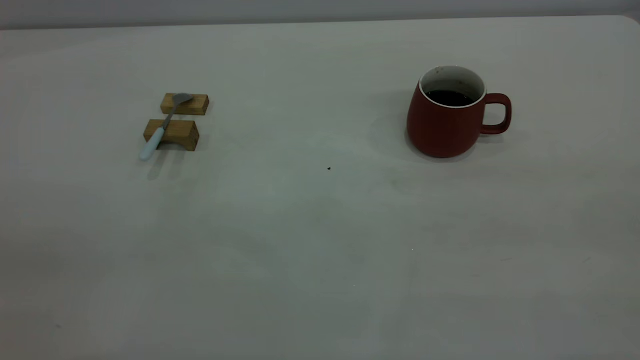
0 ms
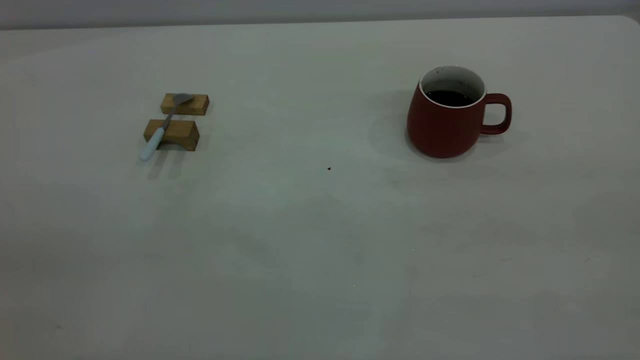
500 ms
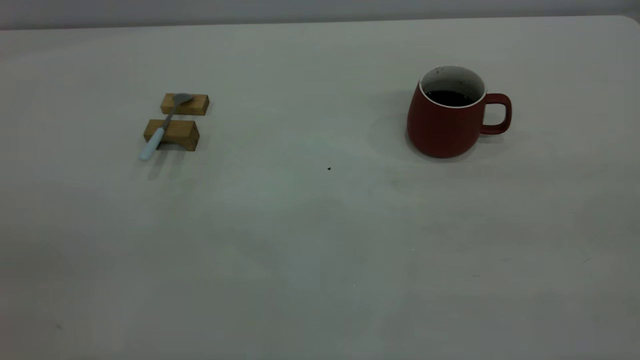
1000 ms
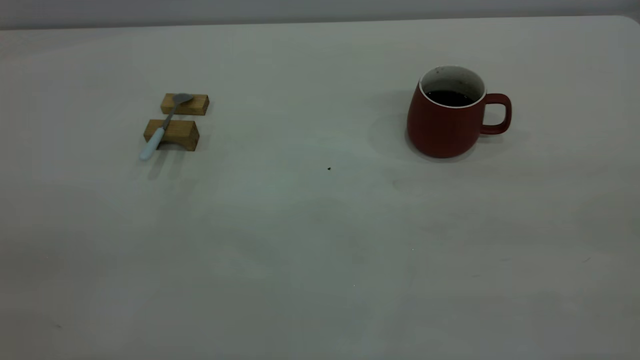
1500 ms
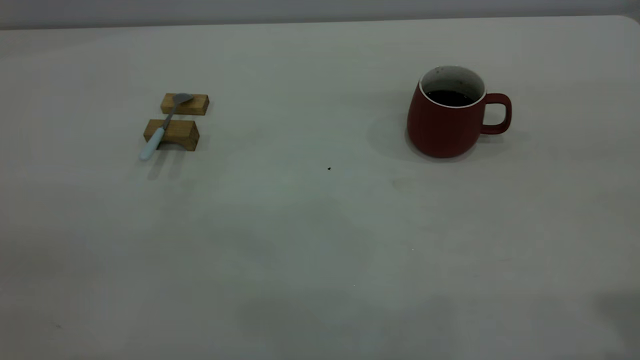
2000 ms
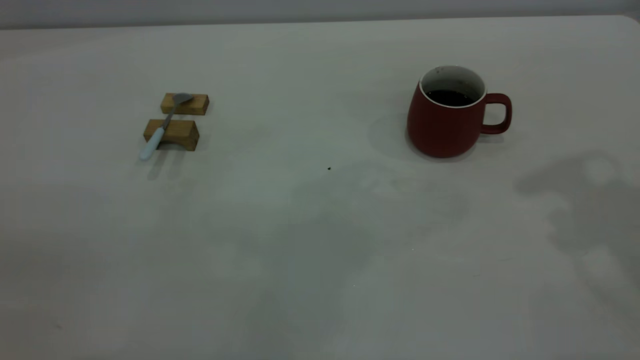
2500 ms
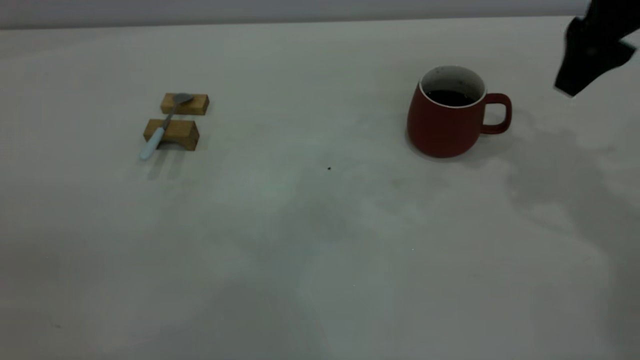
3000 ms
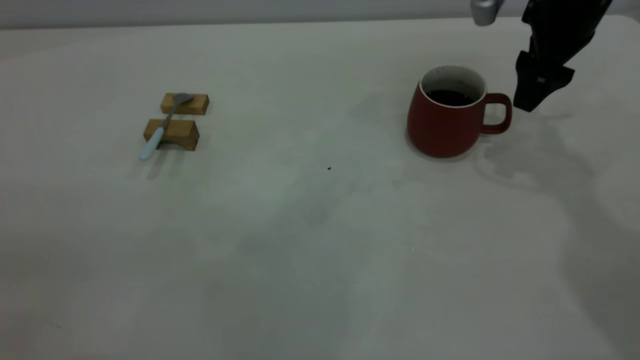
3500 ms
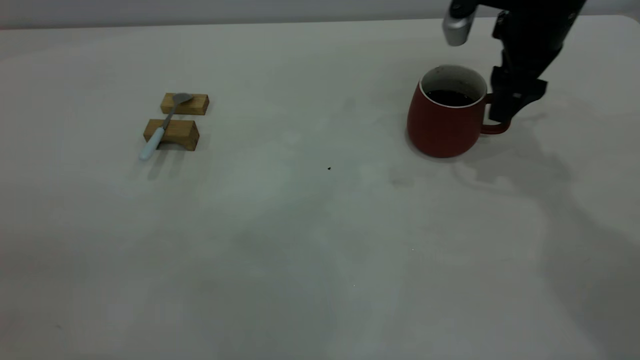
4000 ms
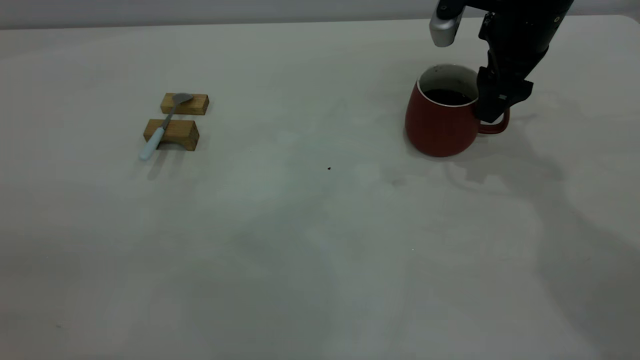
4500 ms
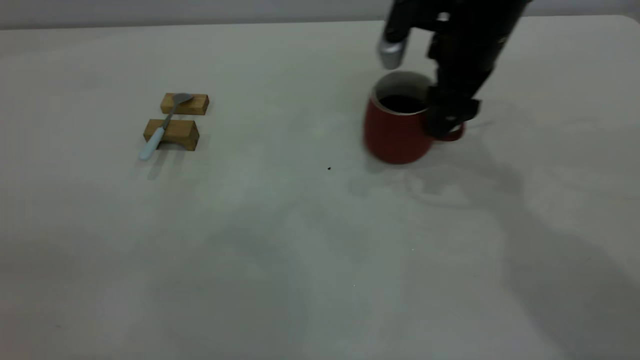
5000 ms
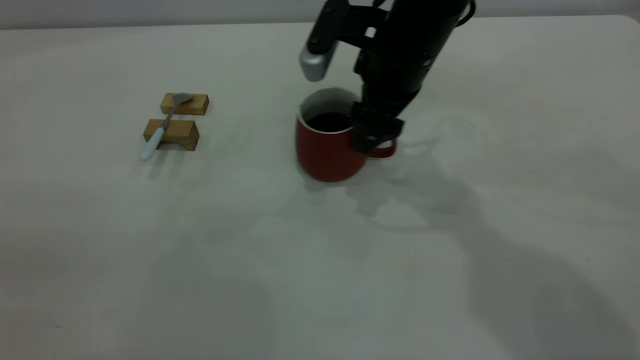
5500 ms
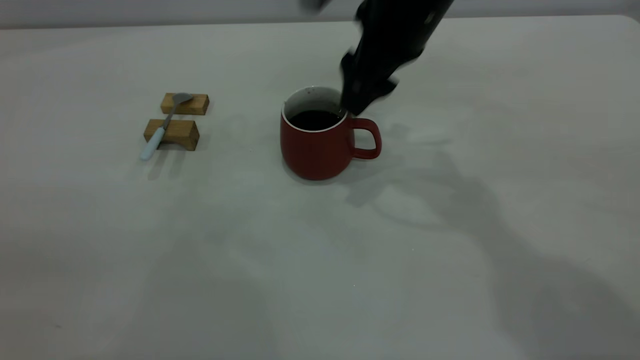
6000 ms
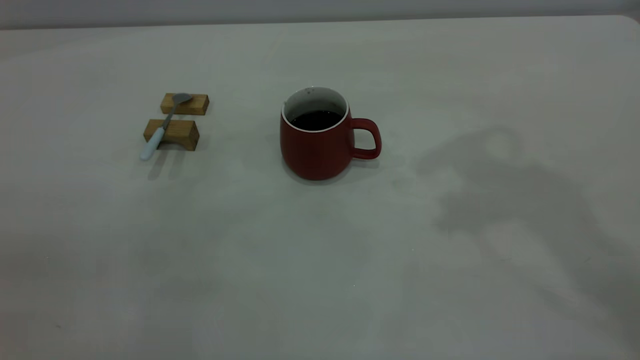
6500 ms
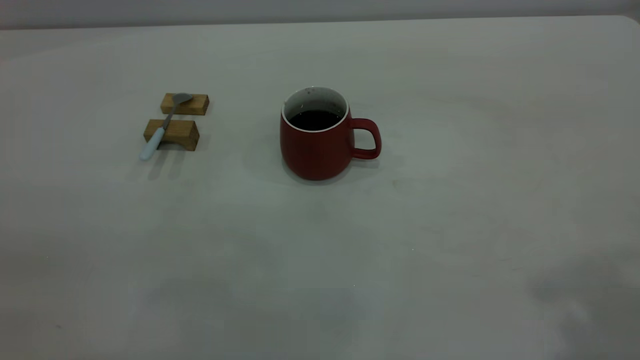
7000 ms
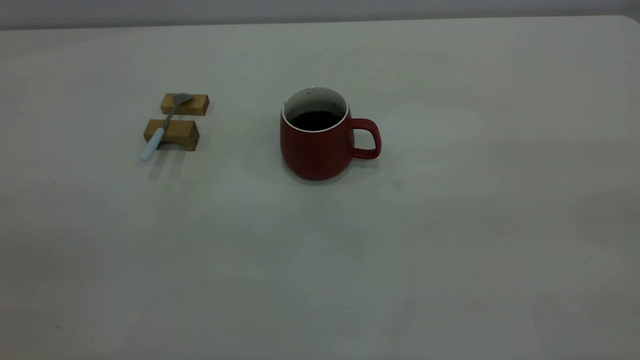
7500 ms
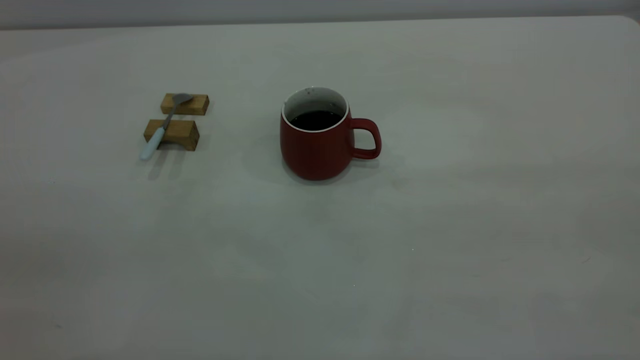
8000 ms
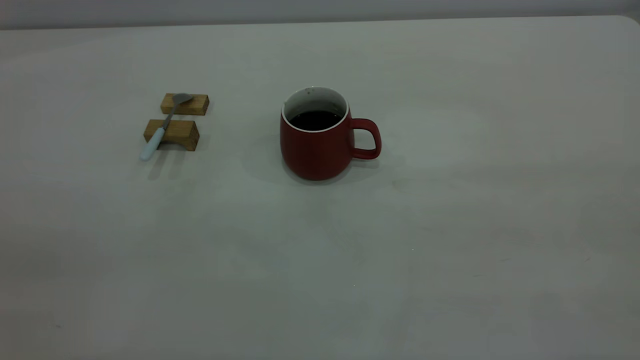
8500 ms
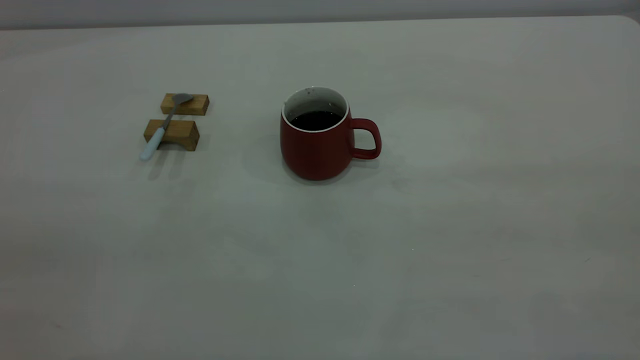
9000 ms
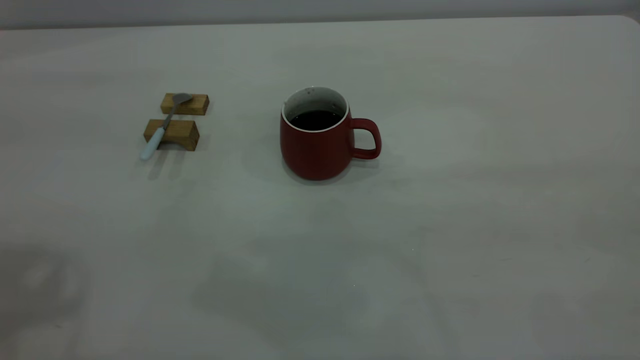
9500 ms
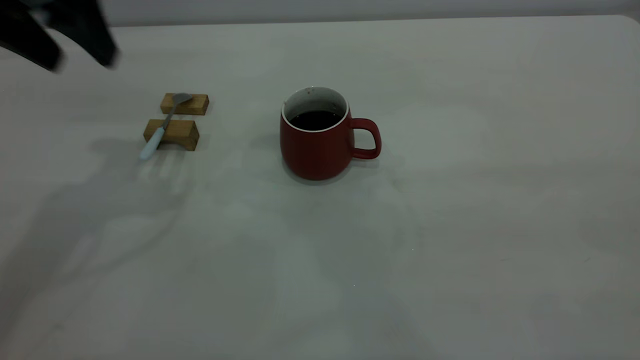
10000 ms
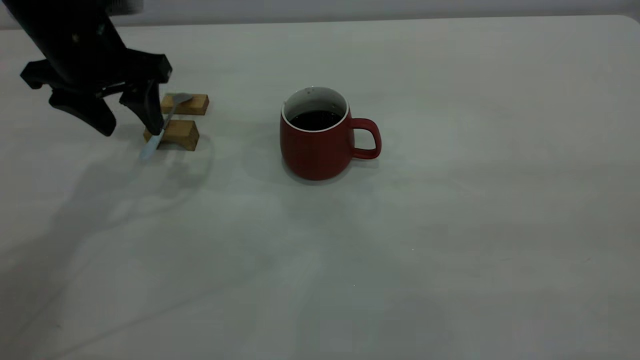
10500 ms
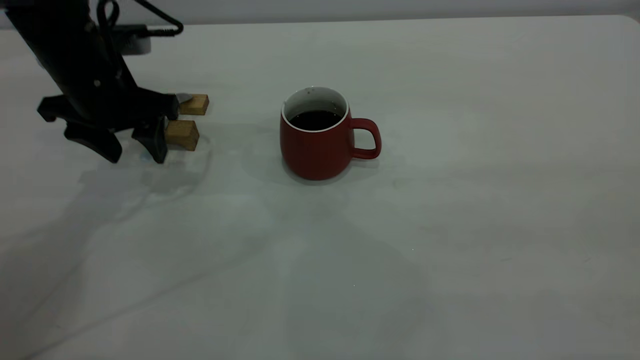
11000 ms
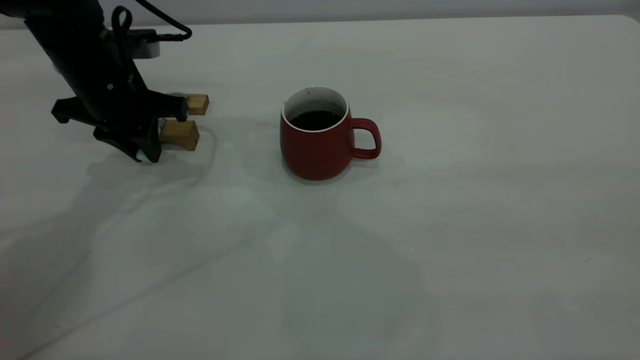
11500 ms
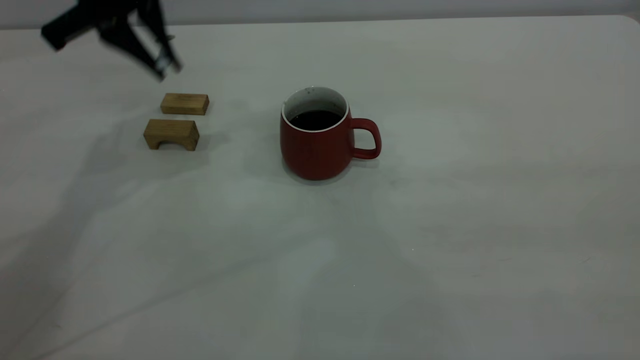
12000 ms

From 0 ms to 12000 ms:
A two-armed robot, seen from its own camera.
Step, from 0 ms to 6000 ms: Move the cup with coffee to the center of view.
Step, from 6500 ms to 11500 ms: Pick up the spoon.
From 2000 ms to 4000 ms: The right gripper travels forward and downward by some 35 cm.
From 4000 ms to 6000 ms: The right gripper shifts some 10 cm to the left.
From 6000 ms to 8000 ms: The right gripper travels backward and to the right by about 40 cm.
From 8000 ms to 10000 ms: The left gripper shifts about 35 cm forward.
From 10000 ms to 12000 ms: The left gripper moves forward, about 5 cm, reaches about 15 cm downward, then returns, and closes its fingers.

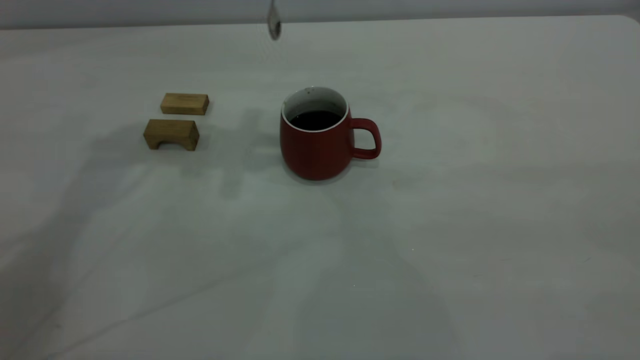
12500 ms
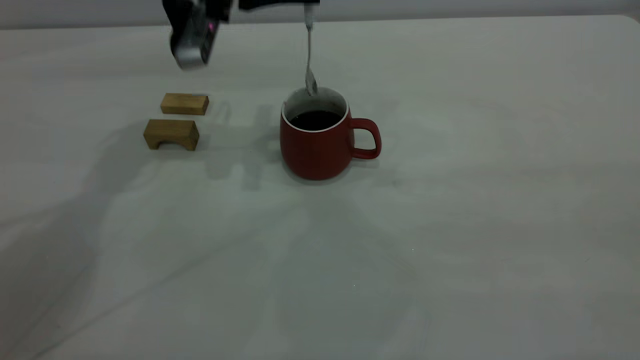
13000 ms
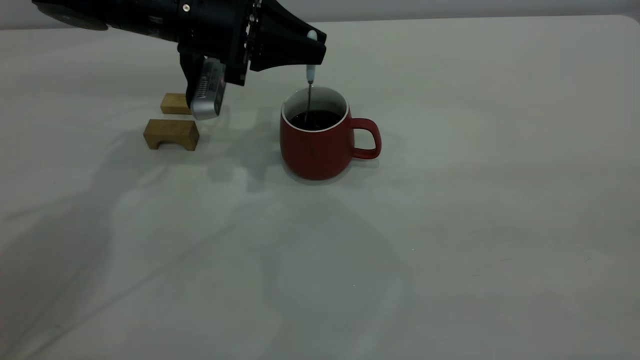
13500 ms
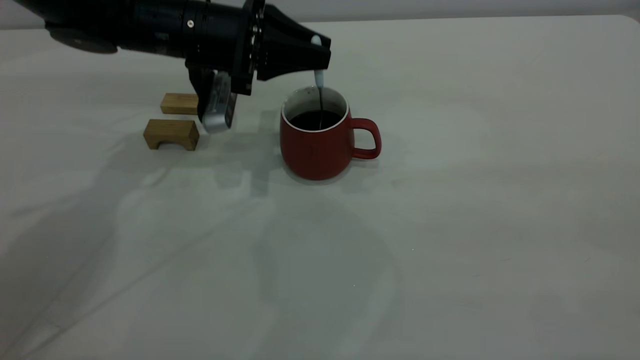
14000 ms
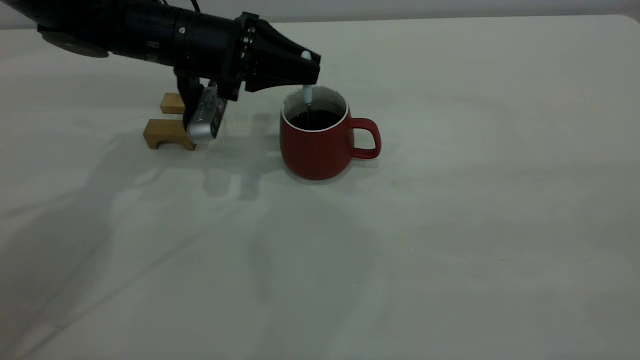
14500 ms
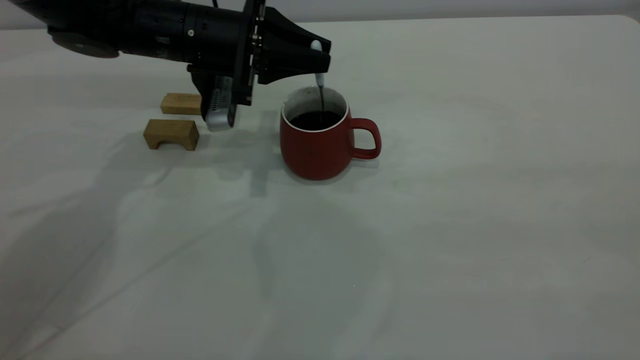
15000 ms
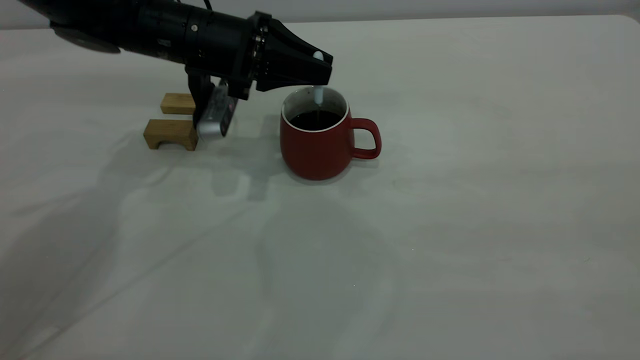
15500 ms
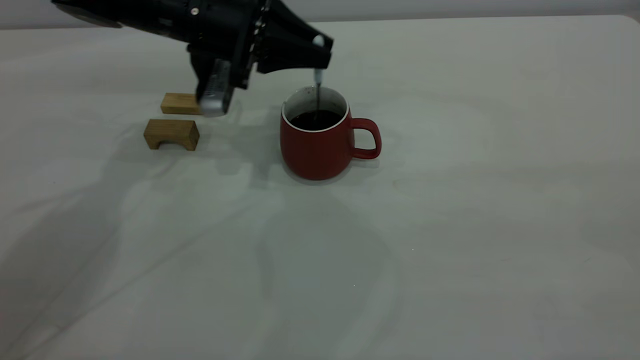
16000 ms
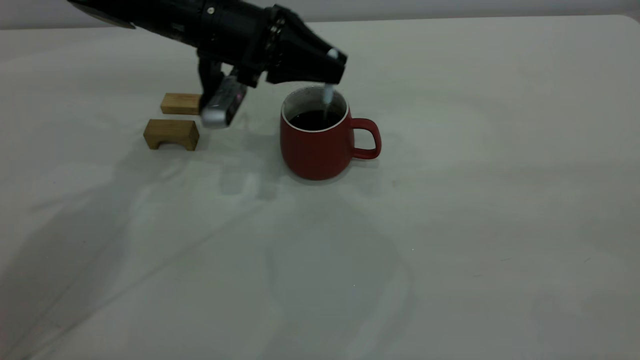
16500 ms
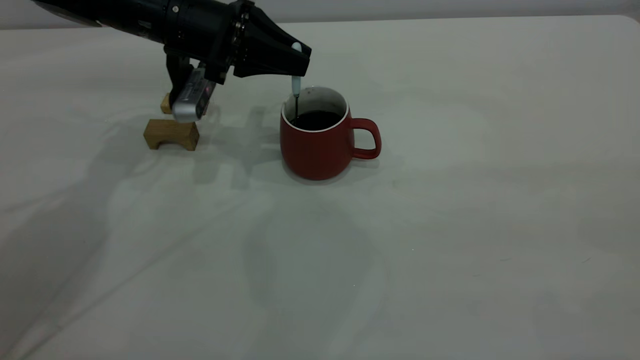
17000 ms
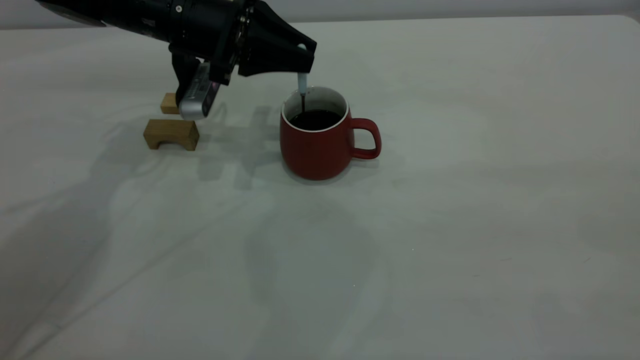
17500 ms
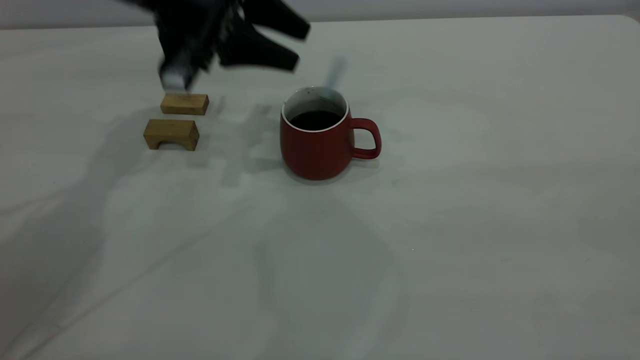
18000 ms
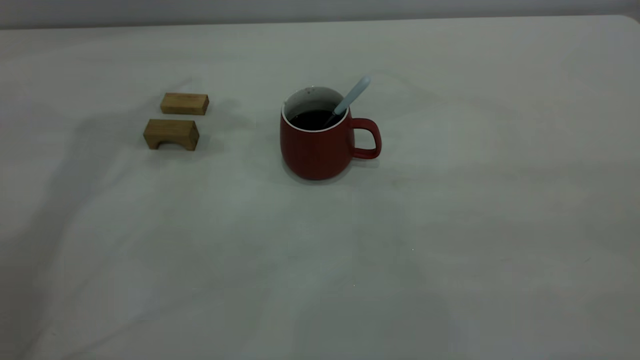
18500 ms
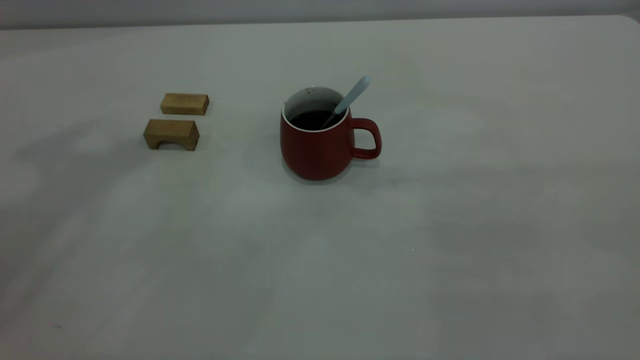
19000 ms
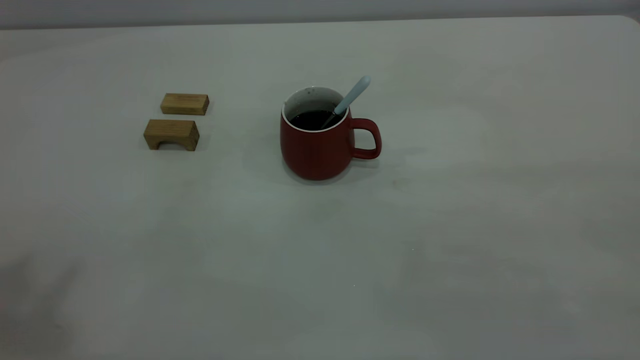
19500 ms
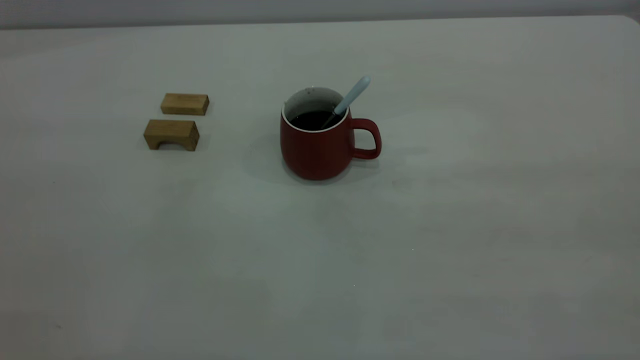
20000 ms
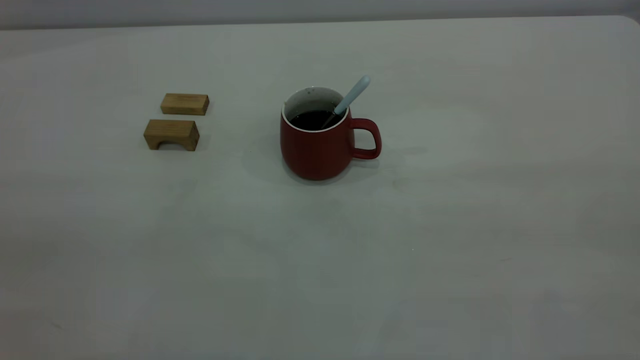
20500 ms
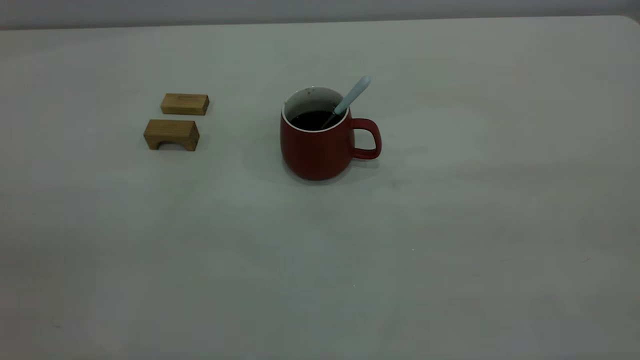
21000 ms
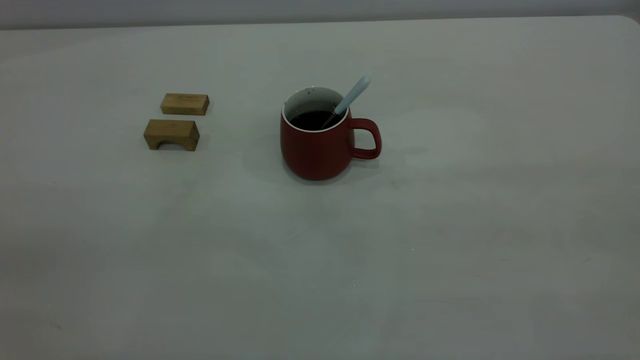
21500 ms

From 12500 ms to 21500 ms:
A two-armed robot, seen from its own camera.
Step, from 12500 ms to 18000 ms: Stir the coffee in the cup.
From 12500 ms to 14500 ms: The left gripper goes some 15 cm downward.
From 14500 ms to 17000 ms: The grippers stay close to where they were, moving slightly.
From 17000 ms to 19500 ms: The left gripper travels upward and backward by roughly 50 cm, and opens its fingers.
